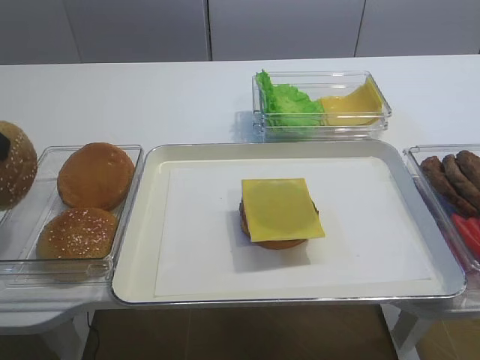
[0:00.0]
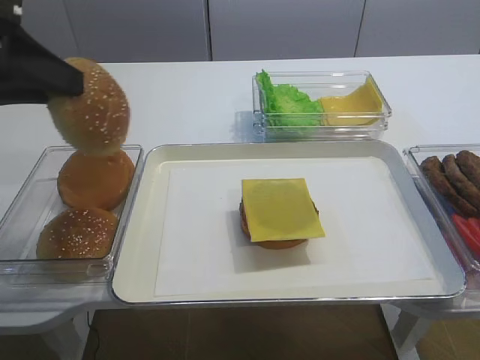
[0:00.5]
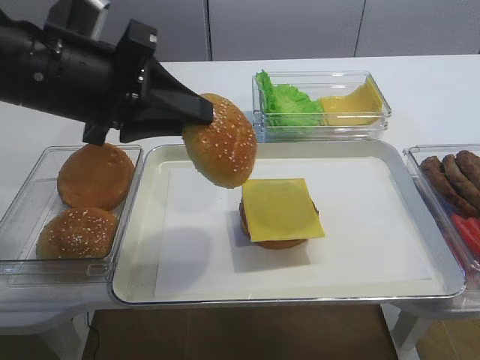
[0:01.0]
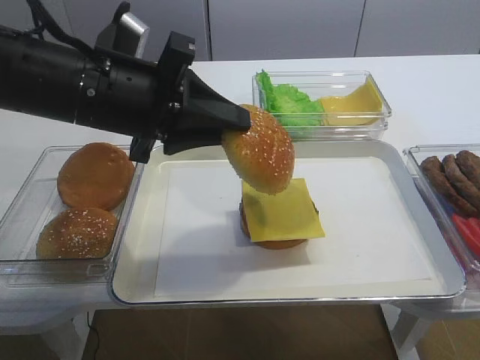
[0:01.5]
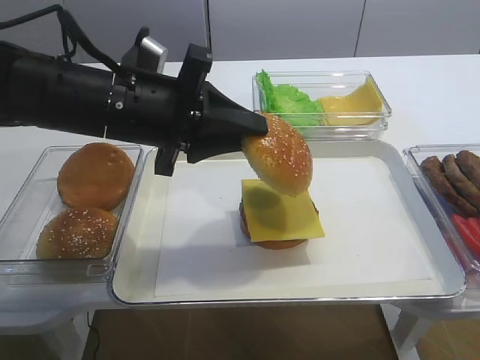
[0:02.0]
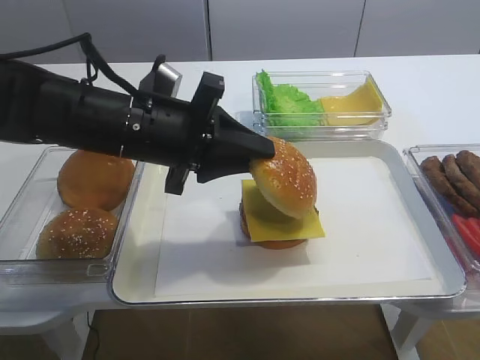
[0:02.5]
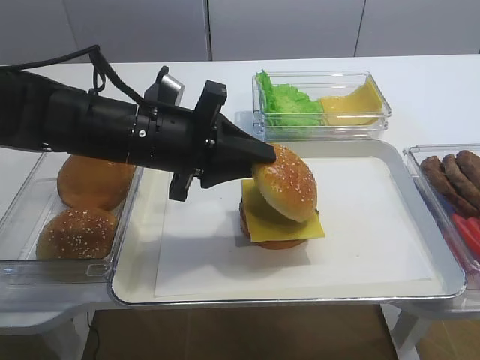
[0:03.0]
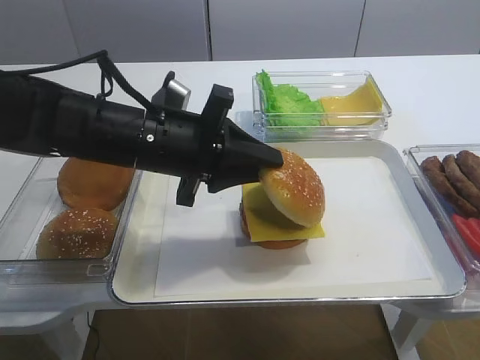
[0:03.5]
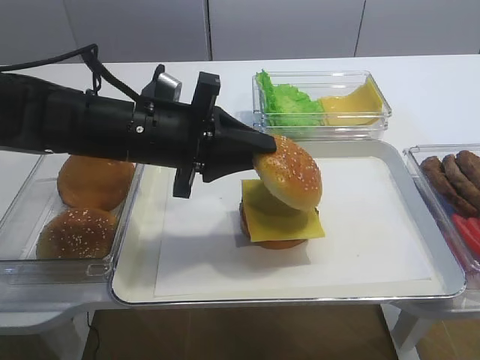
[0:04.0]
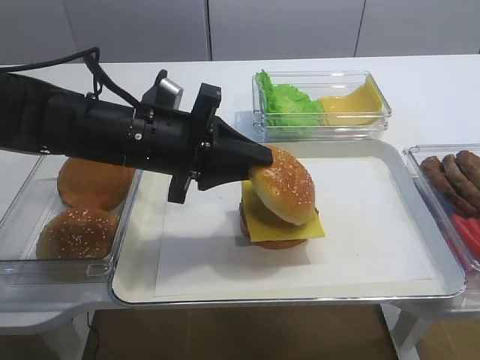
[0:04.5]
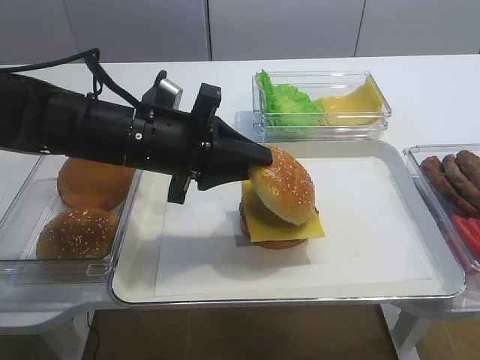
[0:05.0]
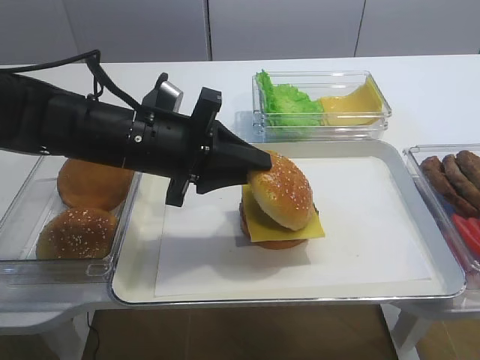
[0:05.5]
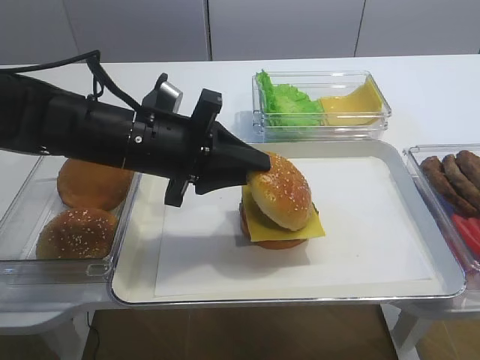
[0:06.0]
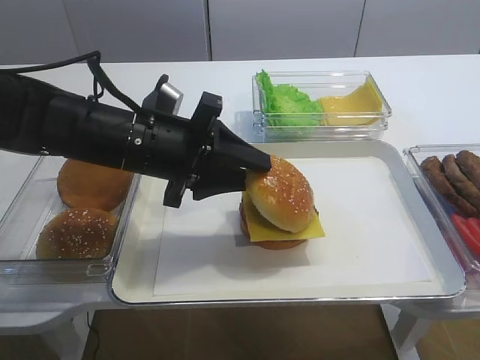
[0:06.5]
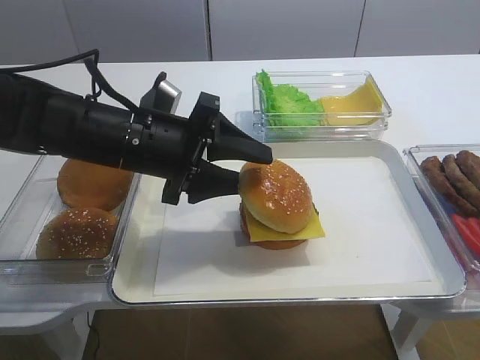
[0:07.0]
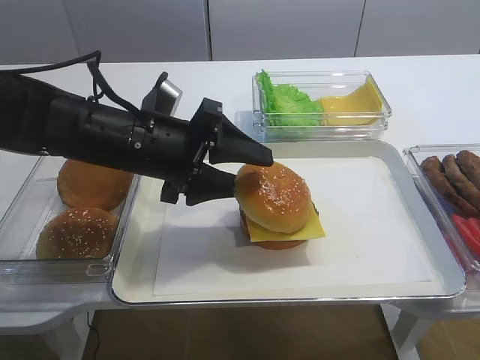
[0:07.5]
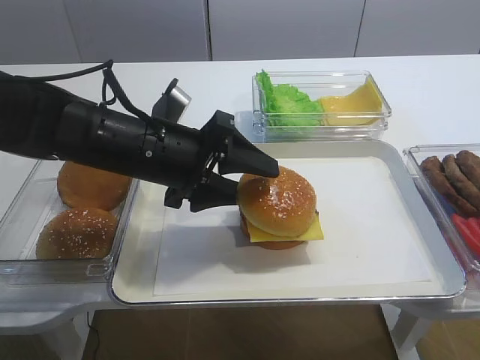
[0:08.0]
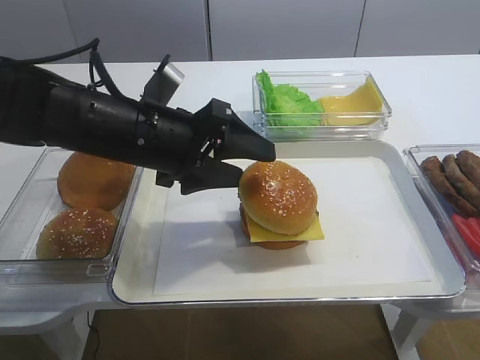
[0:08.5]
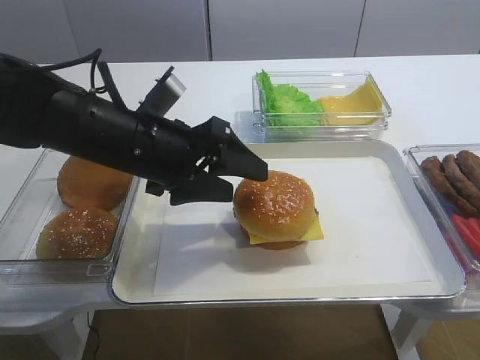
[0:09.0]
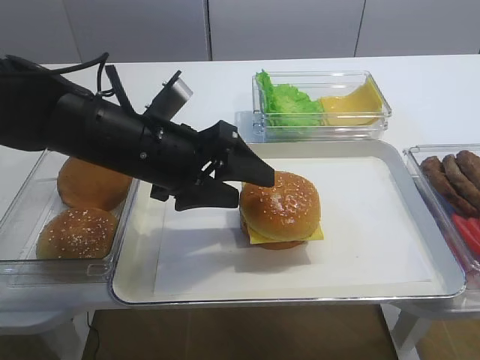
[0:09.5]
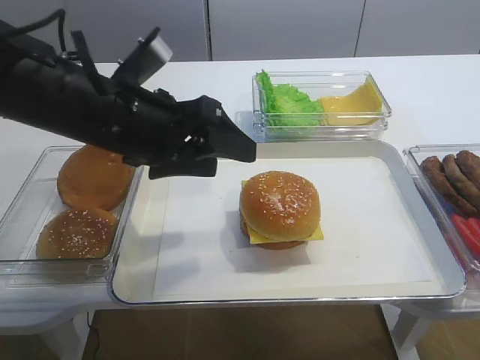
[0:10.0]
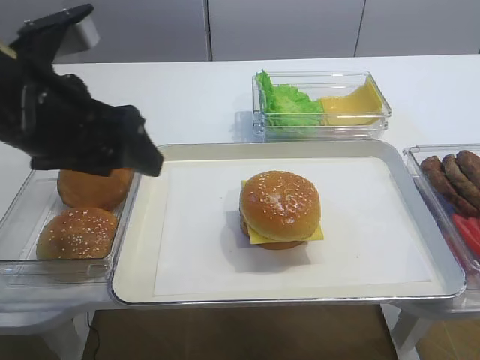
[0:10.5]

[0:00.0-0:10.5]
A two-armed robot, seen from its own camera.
Step, 0:00.0 to 0:09.5: Place the hamburger lid on the cheese slice with the left gripper.
0:00.0 to 0:02.0: The left gripper travels to the right by about 15 cm.
0:02.0 to 0:06.5: The grippers move only a little.
0:06.5 to 0:08.5: The left gripper opens its fingers.
0:08.5 to 0:10.5: The left gripper moves upward, to the left and backward, approximately 10 cm.

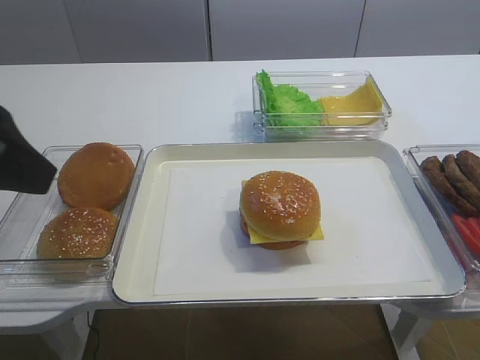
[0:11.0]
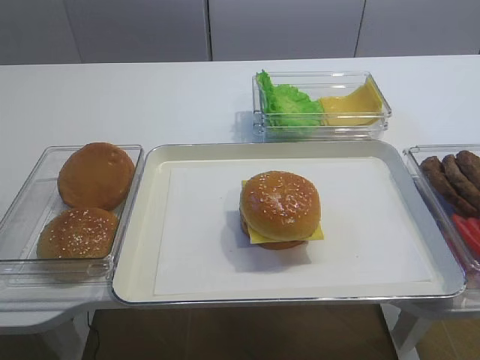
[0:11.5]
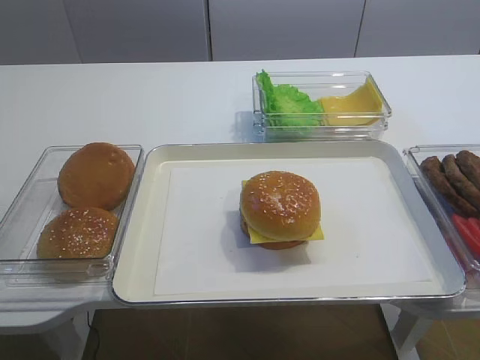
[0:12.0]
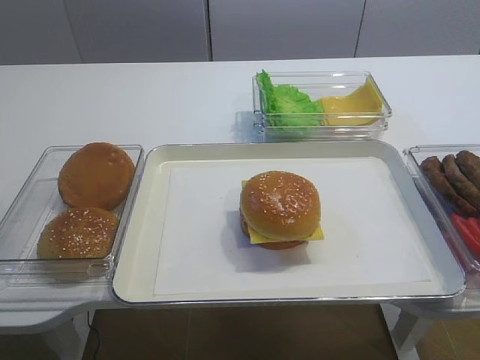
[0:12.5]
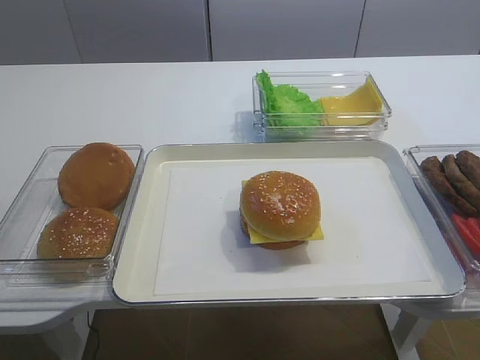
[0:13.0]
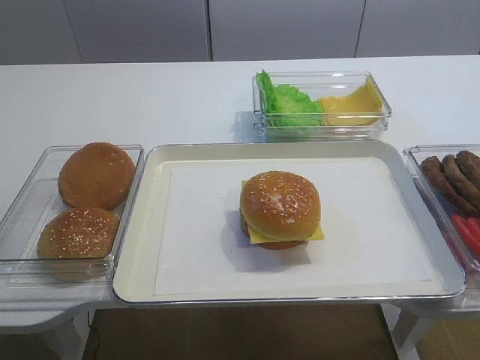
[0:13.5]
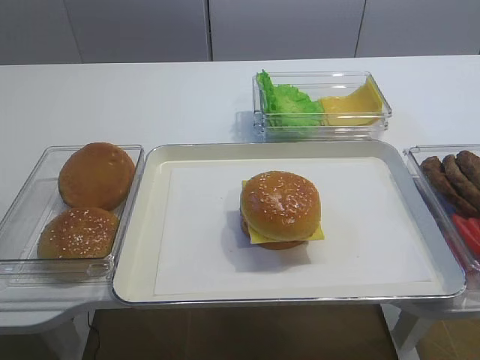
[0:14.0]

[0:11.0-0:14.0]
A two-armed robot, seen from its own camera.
0:11.0 to 0:12.5: The left gripper goes some 20 cm backward and to the left.
